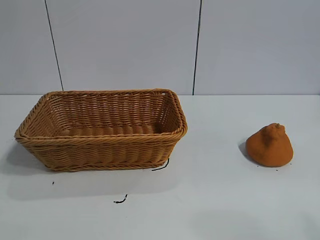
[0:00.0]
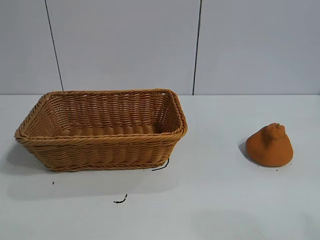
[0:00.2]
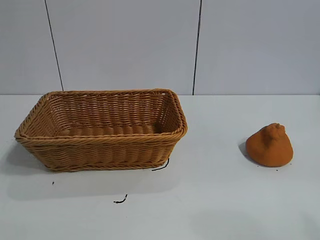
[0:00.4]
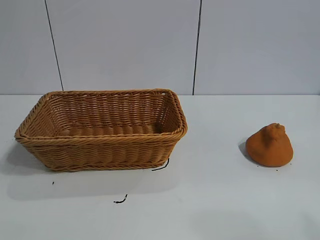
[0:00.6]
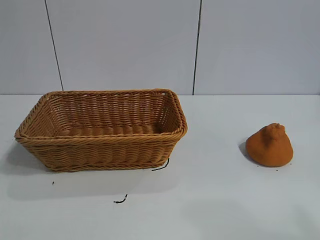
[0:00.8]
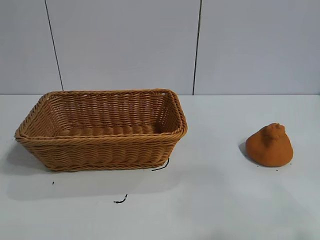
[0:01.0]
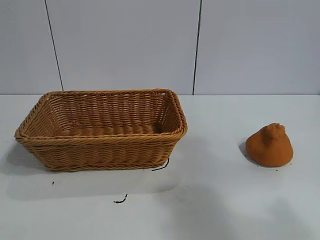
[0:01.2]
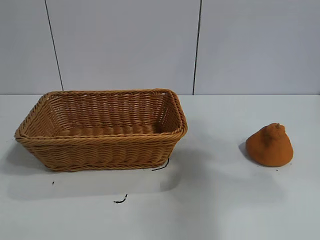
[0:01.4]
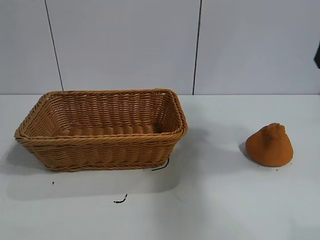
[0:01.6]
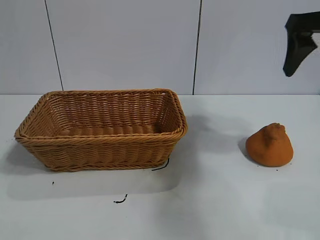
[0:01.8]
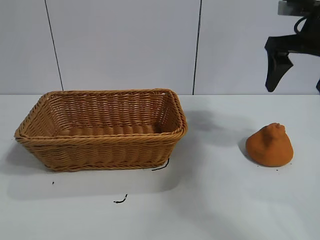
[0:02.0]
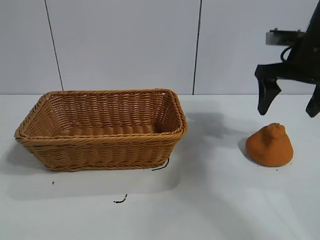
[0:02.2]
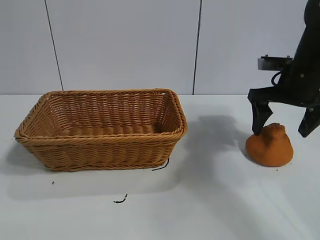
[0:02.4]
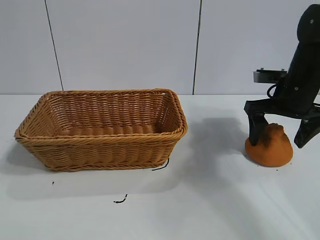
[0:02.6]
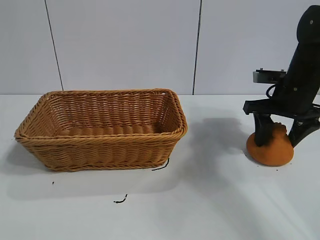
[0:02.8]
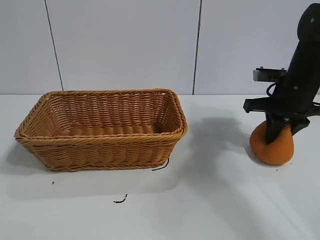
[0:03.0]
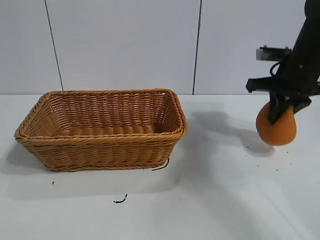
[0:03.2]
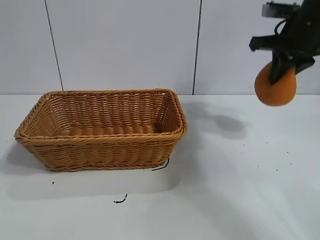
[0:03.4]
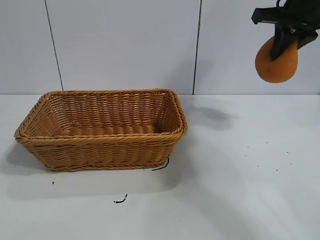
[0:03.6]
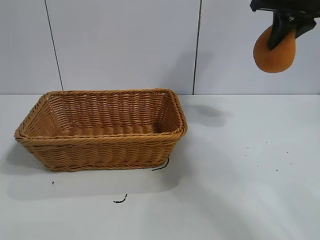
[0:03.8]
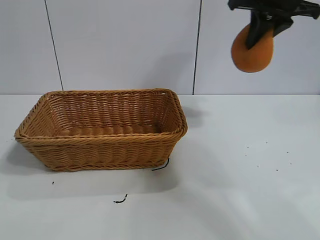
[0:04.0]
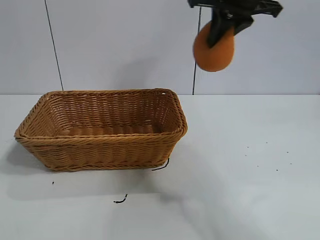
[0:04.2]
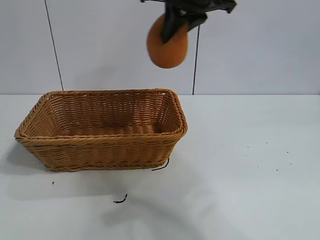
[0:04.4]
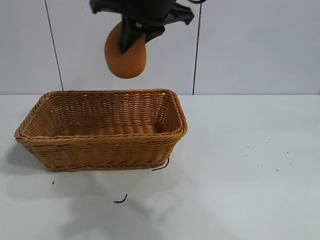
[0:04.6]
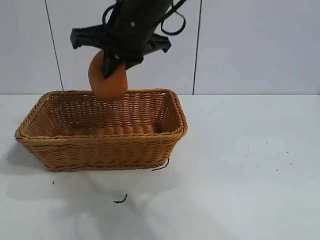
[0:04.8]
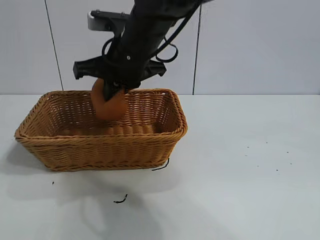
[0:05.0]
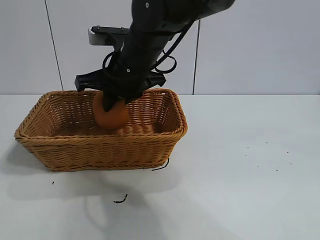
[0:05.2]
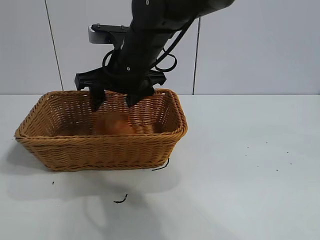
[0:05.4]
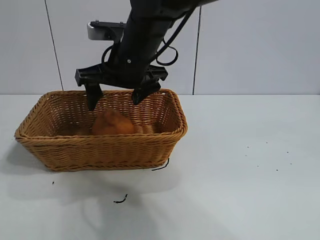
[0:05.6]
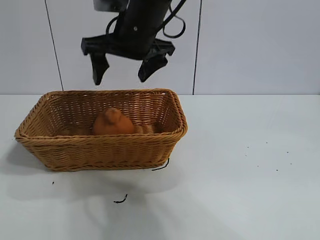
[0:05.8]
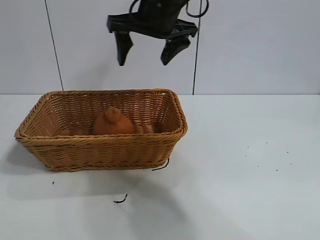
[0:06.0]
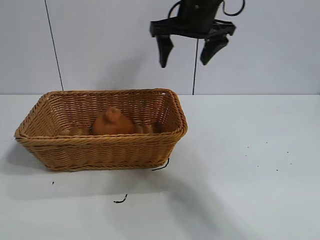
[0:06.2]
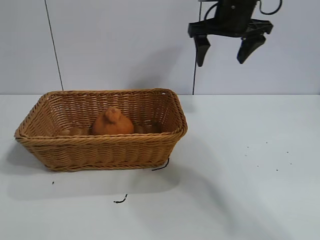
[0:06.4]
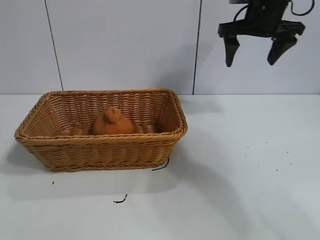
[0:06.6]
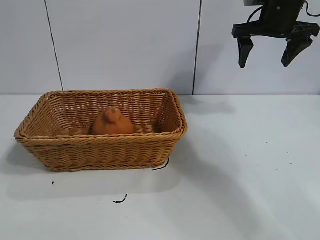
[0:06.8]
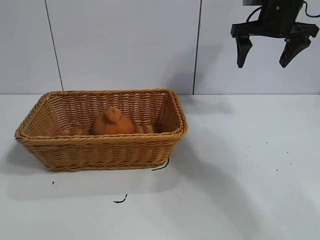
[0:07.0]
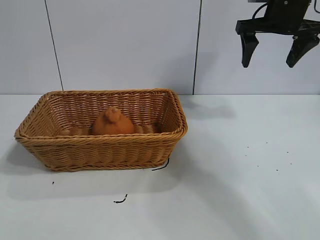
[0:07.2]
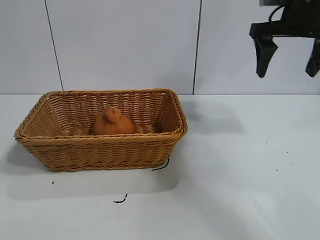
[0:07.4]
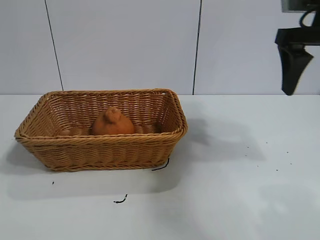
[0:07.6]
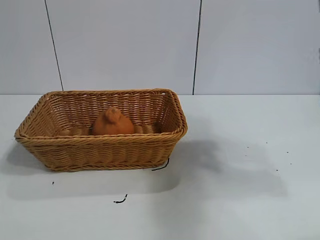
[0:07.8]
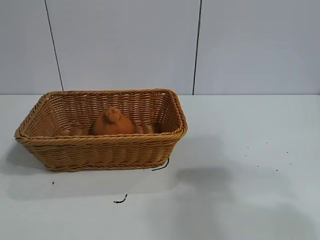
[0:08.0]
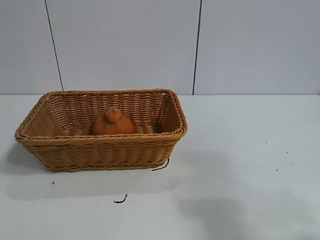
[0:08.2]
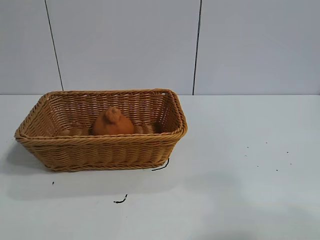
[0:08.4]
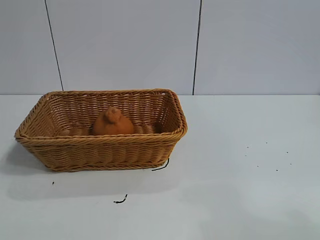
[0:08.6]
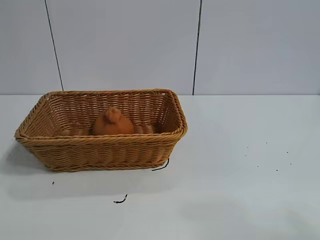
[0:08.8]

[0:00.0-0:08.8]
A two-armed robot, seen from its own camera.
Task of the whole recording: pick up the orange and put it into the basket.
Step, 0:00.8 to 0:03.0: Grasp the orange with right gripper.
Step, 0:03.2 to 0:05.4: Place the orange in the basket with right gripper.

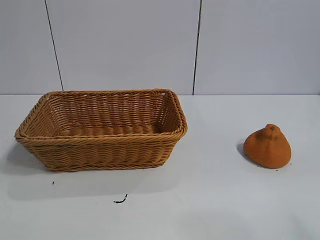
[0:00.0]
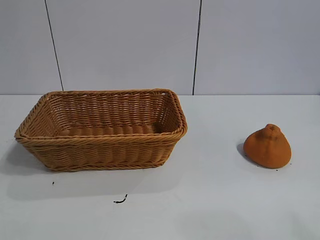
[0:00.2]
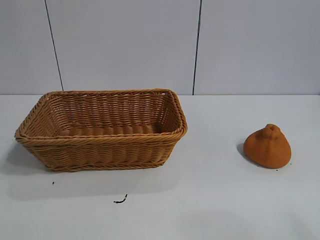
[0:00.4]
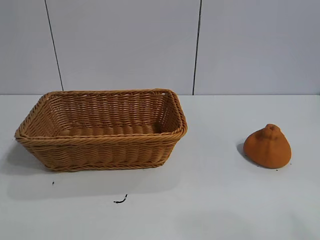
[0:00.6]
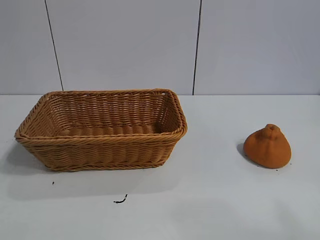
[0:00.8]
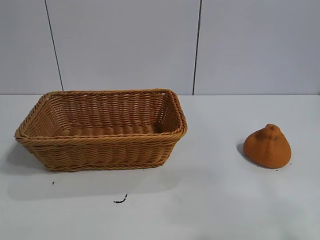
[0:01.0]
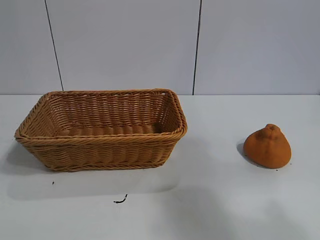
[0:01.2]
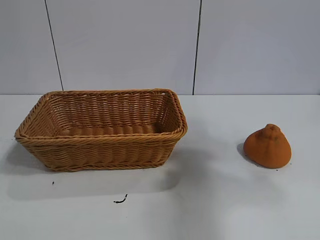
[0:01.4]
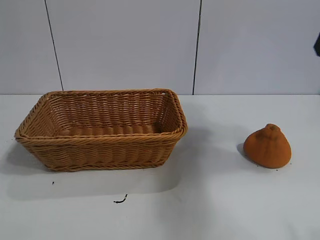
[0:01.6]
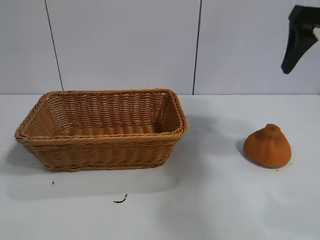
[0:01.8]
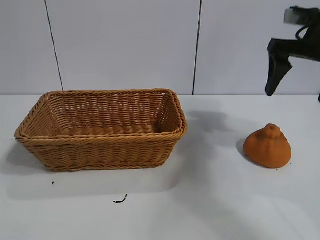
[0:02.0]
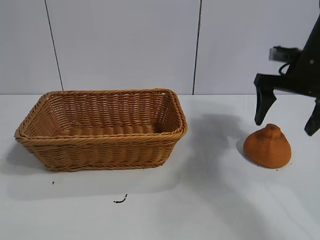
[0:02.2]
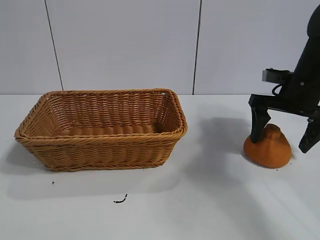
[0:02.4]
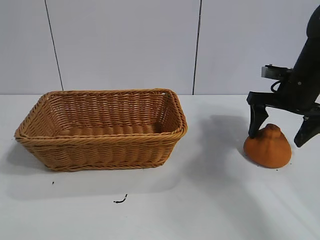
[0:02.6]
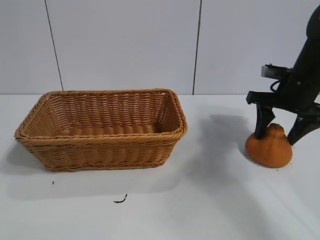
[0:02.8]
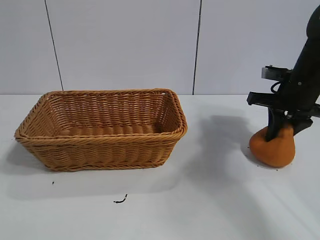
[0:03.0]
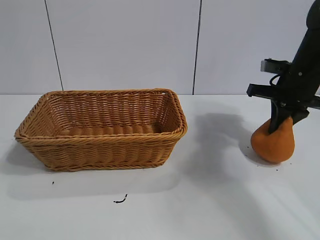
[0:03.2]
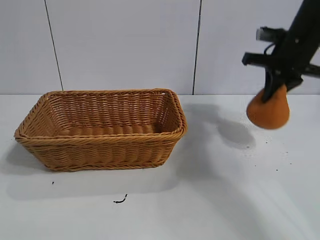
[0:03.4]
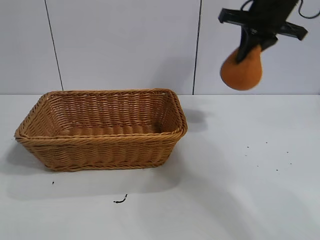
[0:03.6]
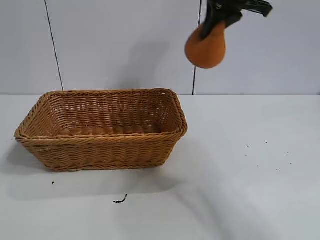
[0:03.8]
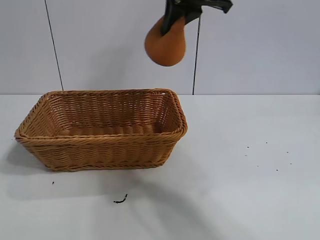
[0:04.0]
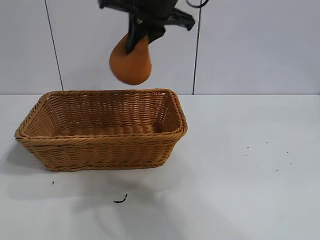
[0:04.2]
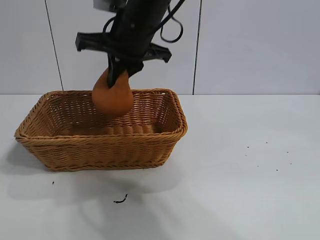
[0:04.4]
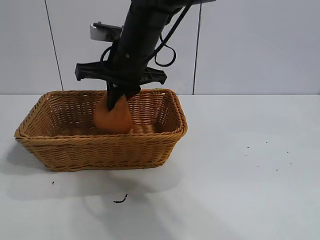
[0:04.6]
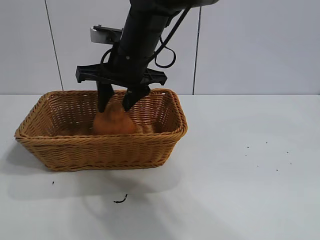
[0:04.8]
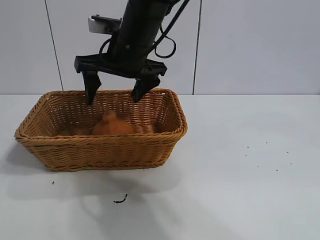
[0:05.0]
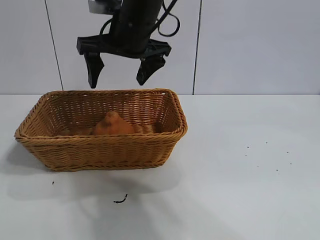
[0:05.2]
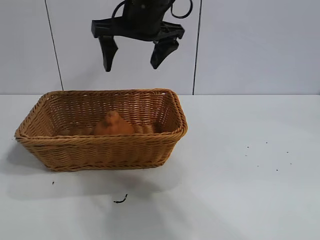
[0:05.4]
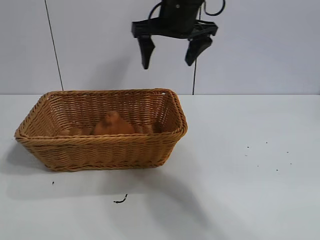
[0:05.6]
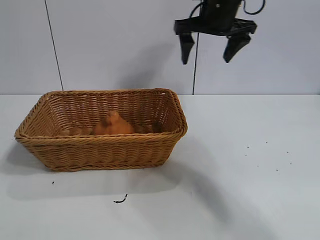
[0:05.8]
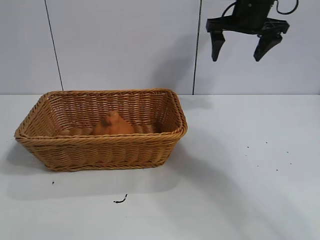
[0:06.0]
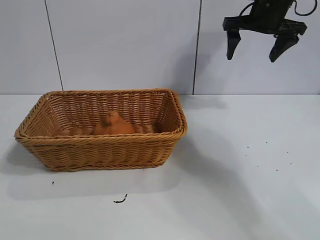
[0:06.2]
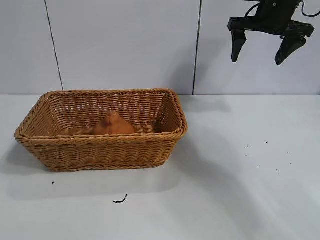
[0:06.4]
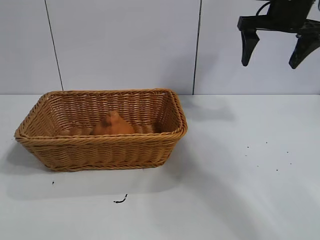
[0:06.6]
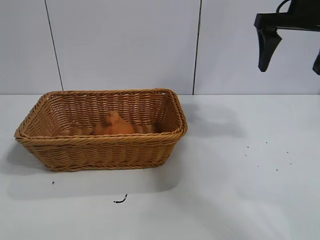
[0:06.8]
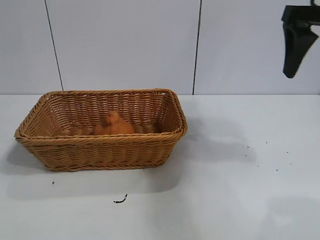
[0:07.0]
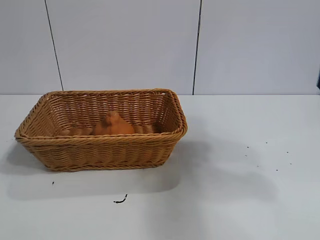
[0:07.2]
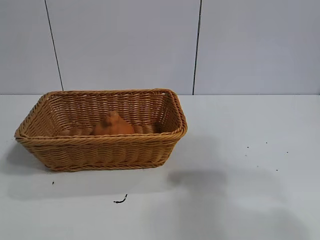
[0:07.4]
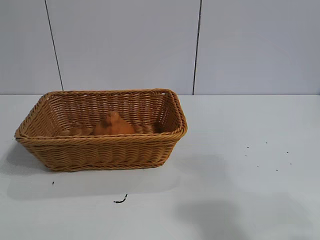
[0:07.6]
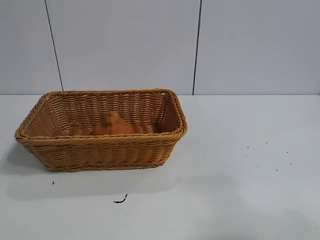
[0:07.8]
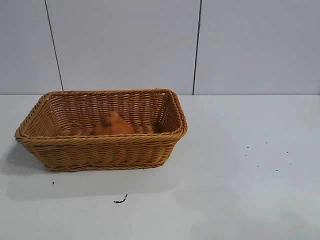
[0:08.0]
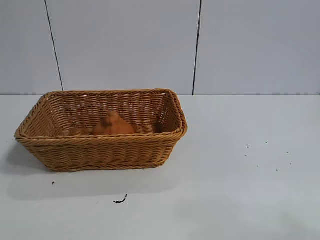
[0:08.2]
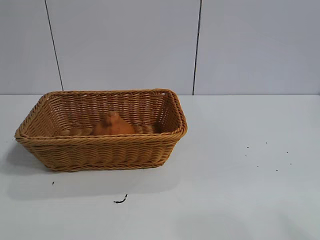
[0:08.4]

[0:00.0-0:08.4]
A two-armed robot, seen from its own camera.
Task of the whole recording: pick up the orange and put it into the basket.
Step, 0:00.8 to 0:03.0: Grasp the orange with right gripper.
Step, 0:03.2 to 0:04.8: Place the orange in the basket with right gripper.
